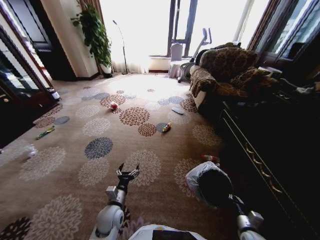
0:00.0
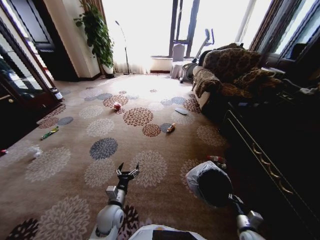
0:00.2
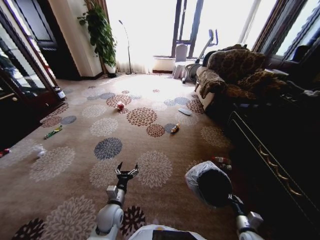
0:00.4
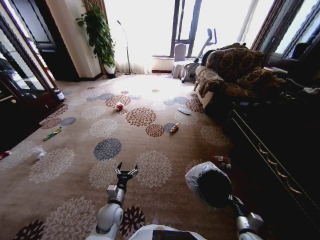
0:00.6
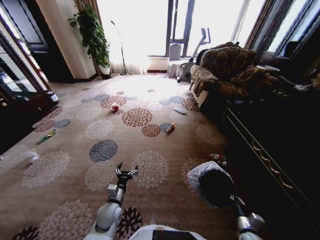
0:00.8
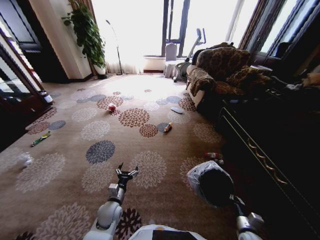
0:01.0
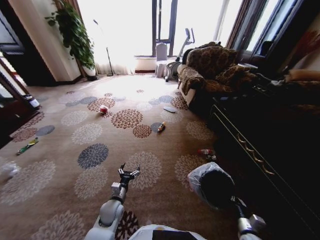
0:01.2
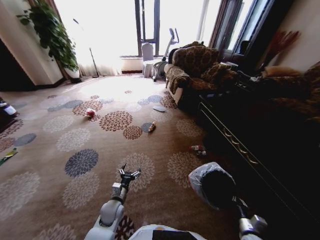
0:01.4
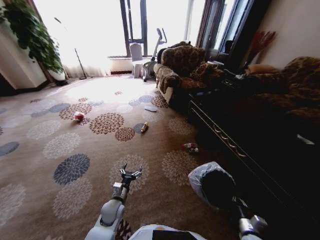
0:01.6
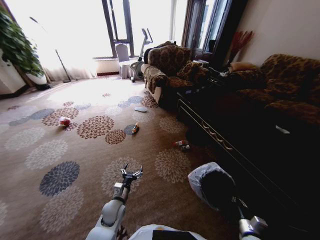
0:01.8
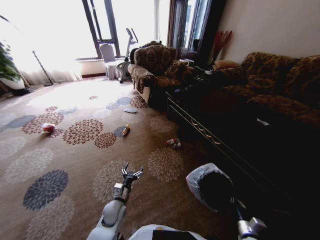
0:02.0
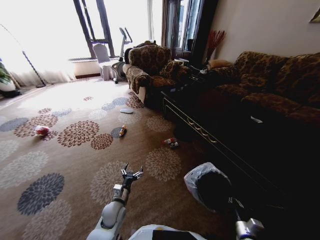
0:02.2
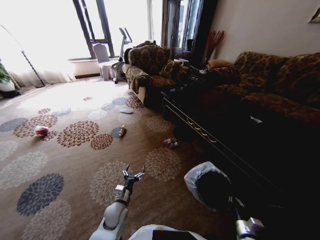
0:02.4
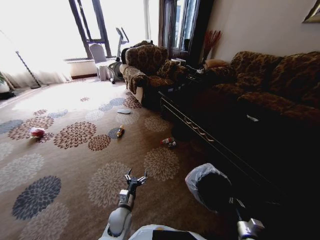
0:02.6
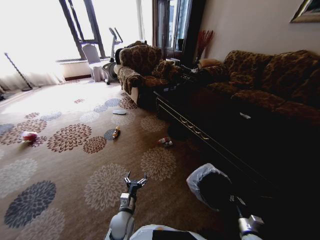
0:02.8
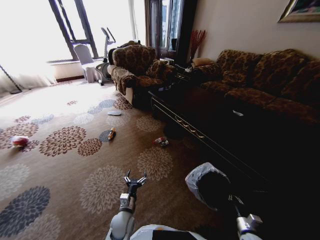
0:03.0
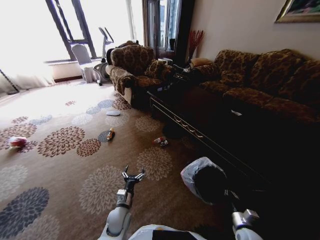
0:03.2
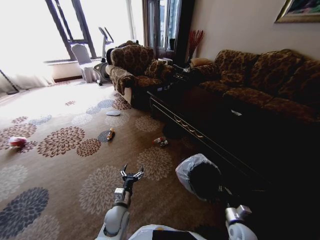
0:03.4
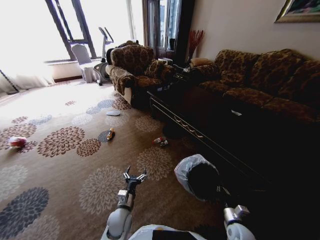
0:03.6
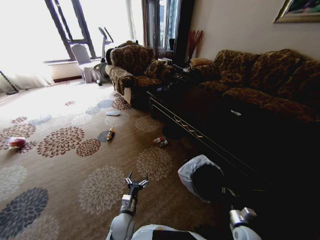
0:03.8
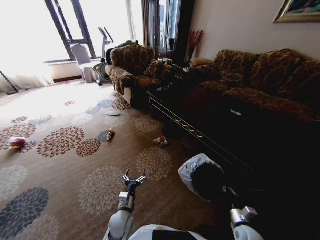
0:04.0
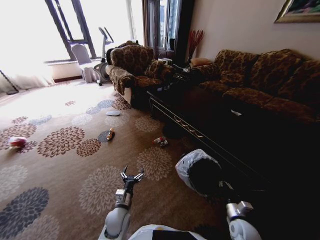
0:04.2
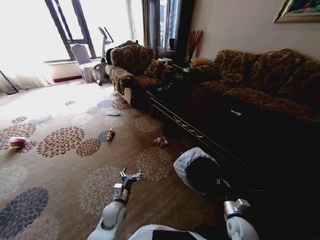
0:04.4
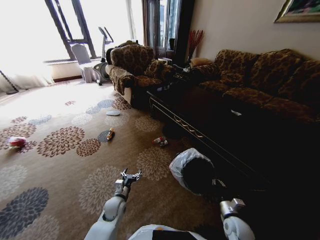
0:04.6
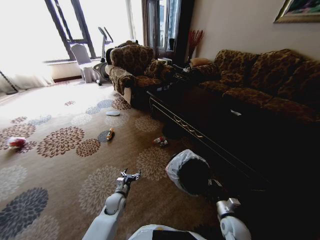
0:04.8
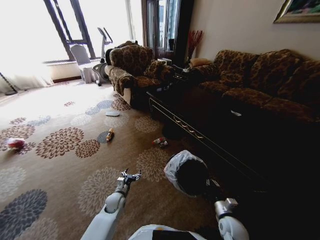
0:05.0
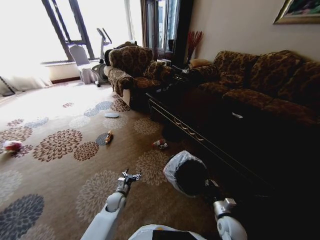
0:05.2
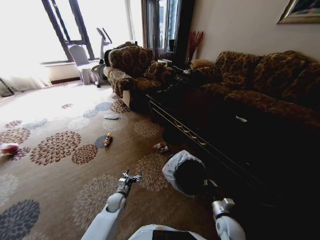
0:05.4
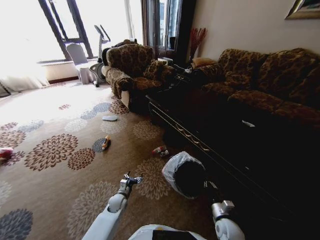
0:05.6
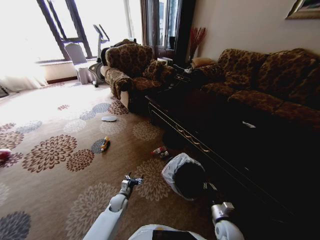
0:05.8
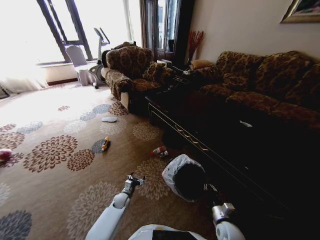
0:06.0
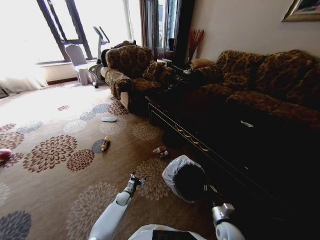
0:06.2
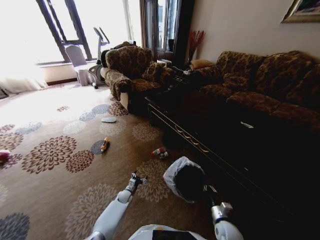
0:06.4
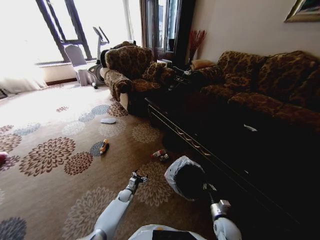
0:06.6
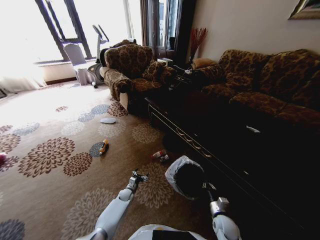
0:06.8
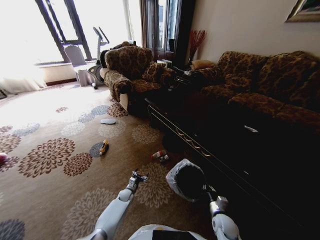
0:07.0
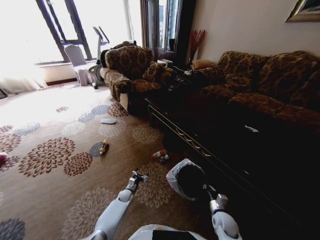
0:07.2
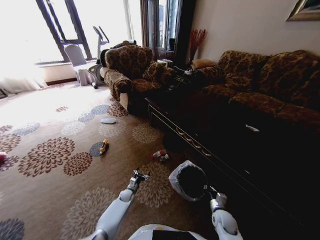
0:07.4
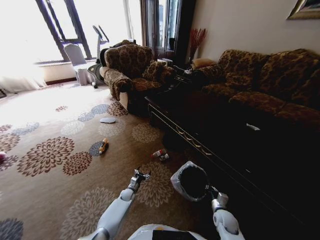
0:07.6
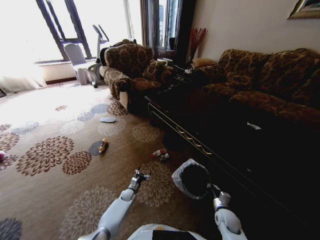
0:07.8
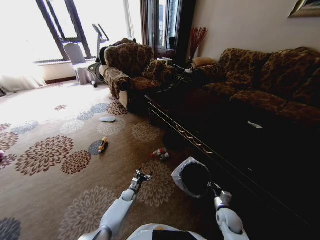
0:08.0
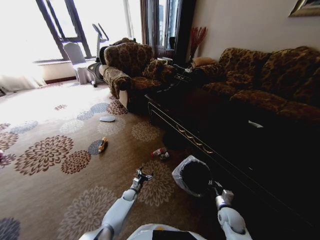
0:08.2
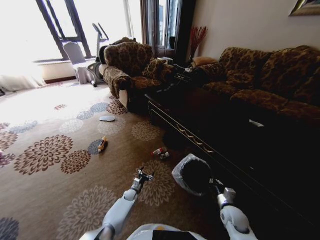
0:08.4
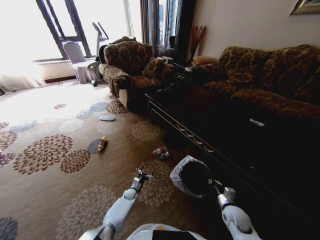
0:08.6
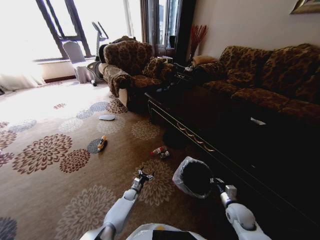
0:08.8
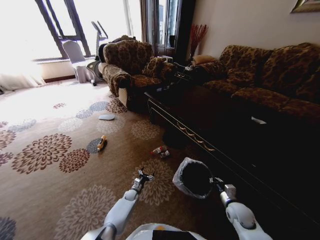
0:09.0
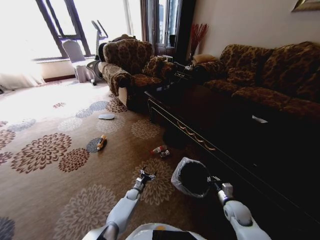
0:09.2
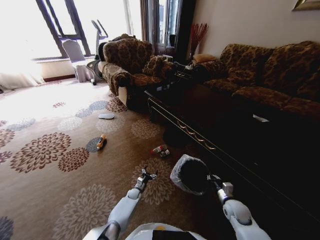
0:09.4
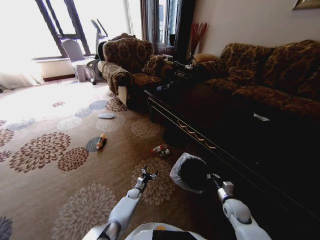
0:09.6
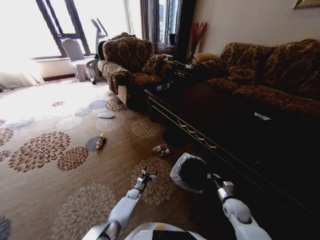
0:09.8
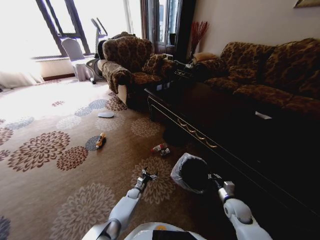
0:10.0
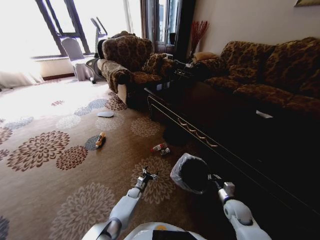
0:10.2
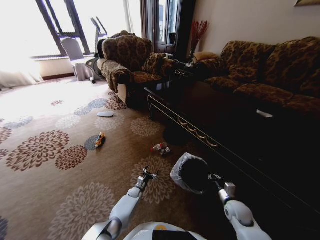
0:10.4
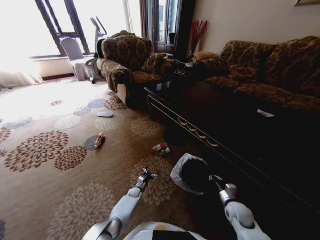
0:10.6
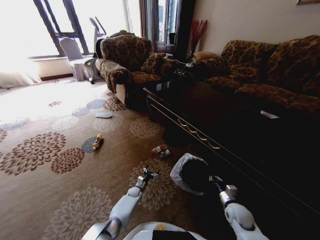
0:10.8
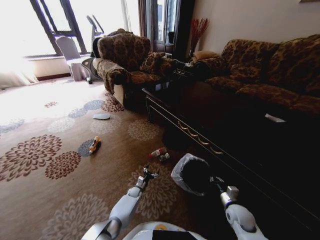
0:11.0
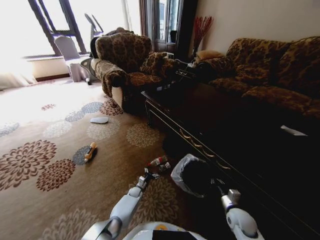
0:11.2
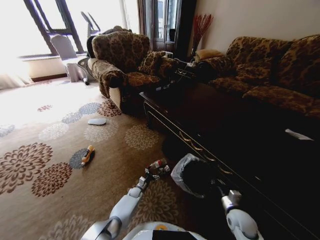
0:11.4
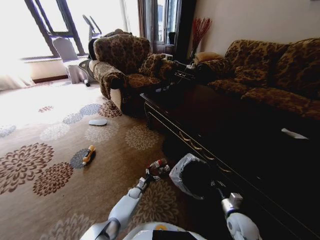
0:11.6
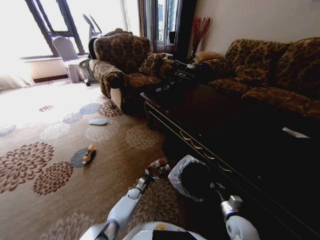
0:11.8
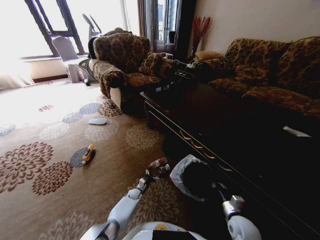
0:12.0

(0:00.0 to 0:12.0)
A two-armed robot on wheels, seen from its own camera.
Task of the whole recording: Pick up the trash from the ground and place it into the trash bin.
0:00.0 - 0:01.6: The left gripper shifts by some 5 cm.
0:01.6 - 0:03.0: The left gripper heads to the right, covering some 5 cm.
0:03.0 - 0:04.4: The left gripper changes place by about 5 cm. The right gripper is displaced to the left and upward by some 10 cm.
0:04.4 - 0:06.0: The left gripper moves downward and forward, some 15 cm, while the right gripper ends up roughly 5 cm from where it was.
0:06.0 - 0:07.6: The right gripper travels forward by about 5 cm. Meanwhile the left gripper moves approximately 5 cm.
0:07.6 - 0:09.0: The right gripper travels upward by approximately 5 cm.
0:09.0 - 0:10.4: The grippers make only small movements.
0:10.4 - 0:12.0: The right gripper goes approximately 5 cm backward.

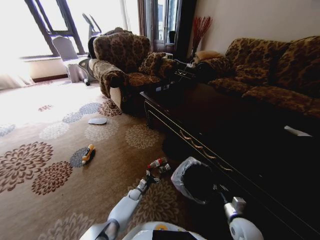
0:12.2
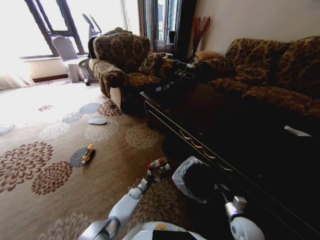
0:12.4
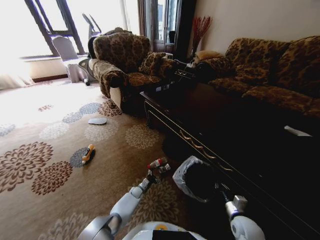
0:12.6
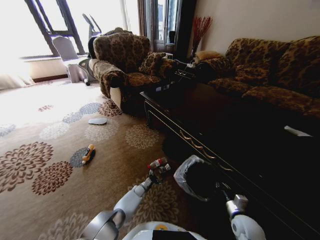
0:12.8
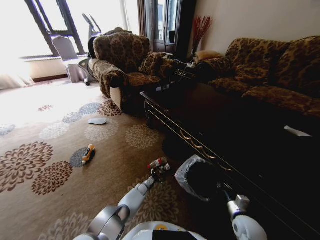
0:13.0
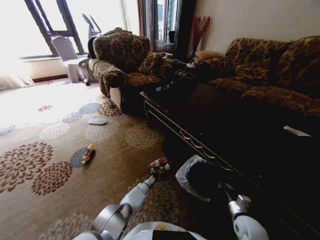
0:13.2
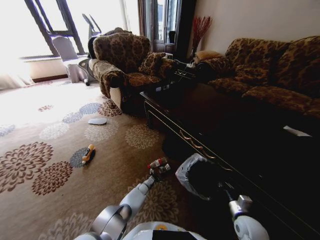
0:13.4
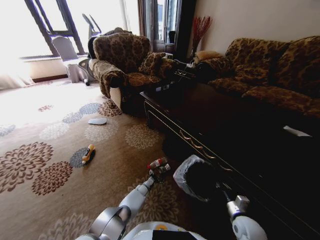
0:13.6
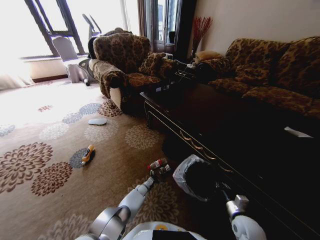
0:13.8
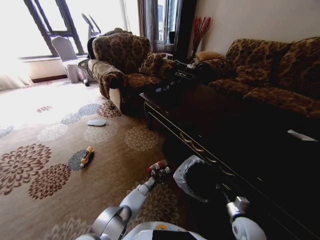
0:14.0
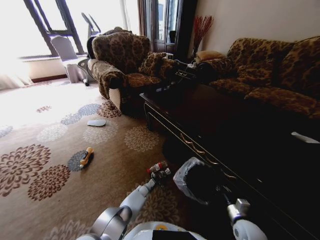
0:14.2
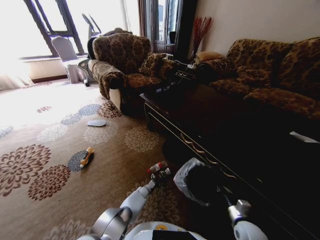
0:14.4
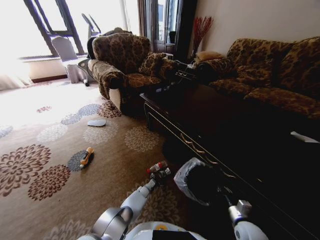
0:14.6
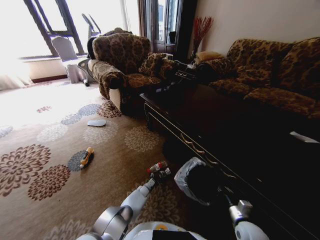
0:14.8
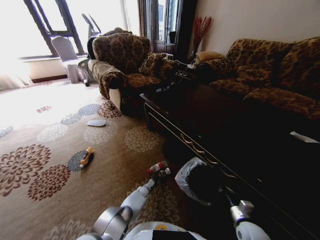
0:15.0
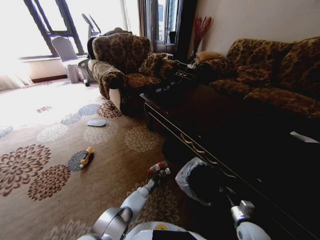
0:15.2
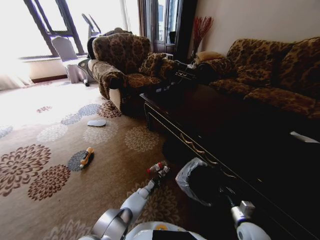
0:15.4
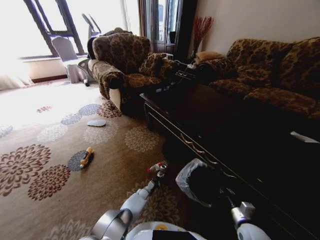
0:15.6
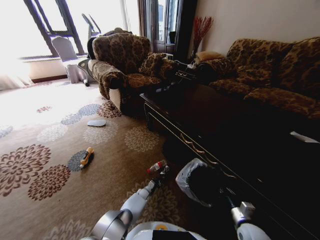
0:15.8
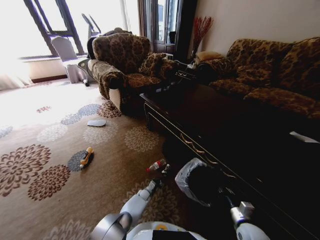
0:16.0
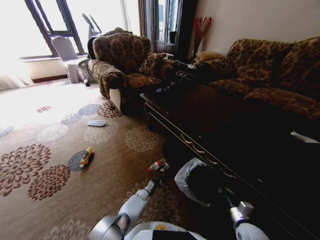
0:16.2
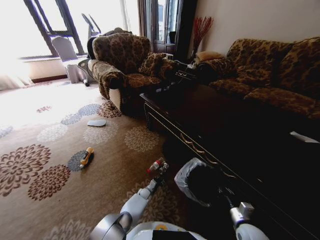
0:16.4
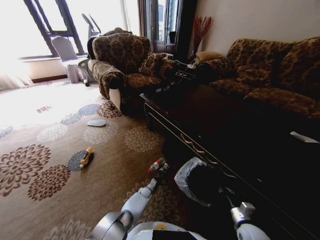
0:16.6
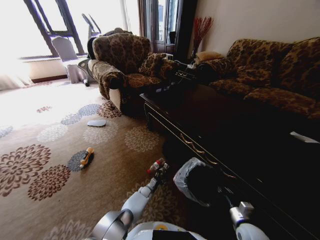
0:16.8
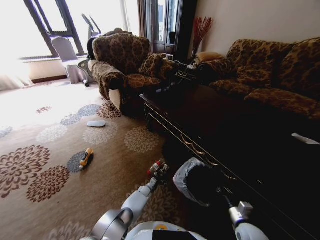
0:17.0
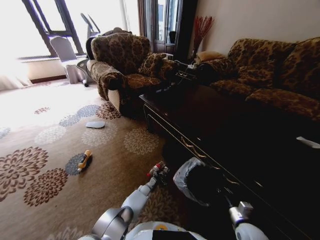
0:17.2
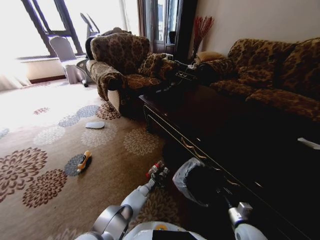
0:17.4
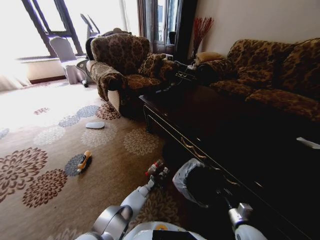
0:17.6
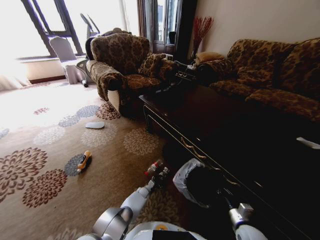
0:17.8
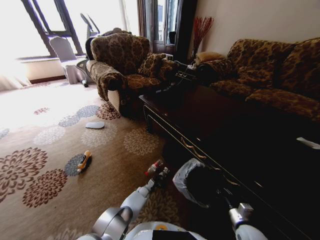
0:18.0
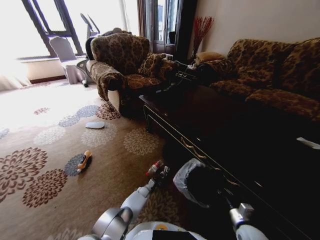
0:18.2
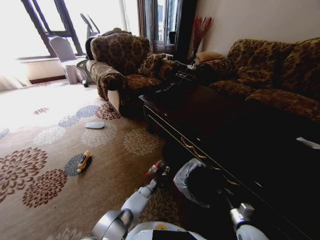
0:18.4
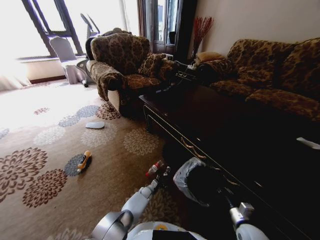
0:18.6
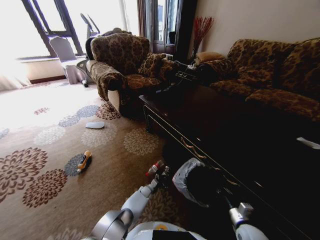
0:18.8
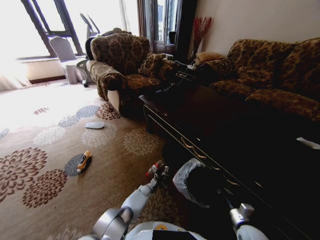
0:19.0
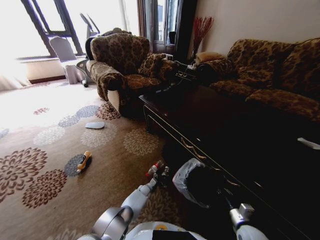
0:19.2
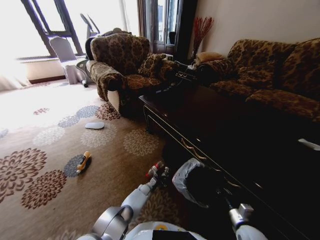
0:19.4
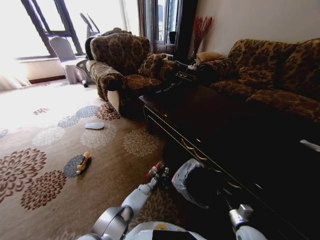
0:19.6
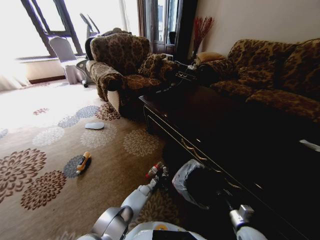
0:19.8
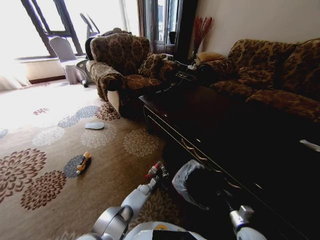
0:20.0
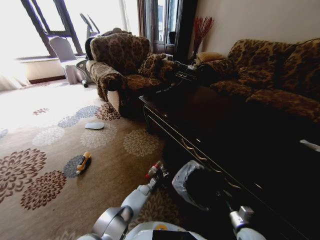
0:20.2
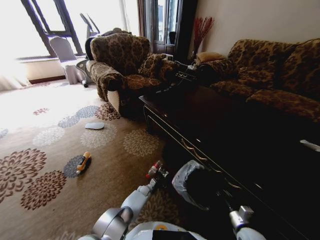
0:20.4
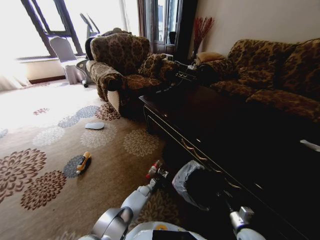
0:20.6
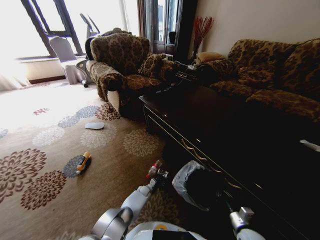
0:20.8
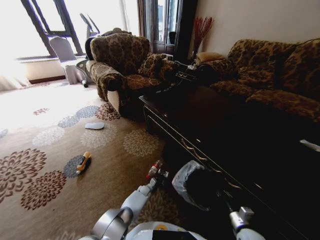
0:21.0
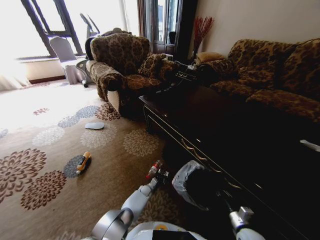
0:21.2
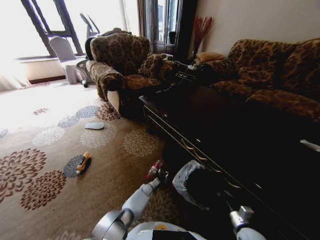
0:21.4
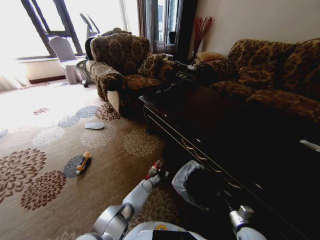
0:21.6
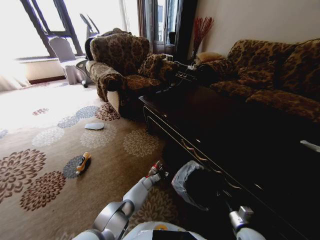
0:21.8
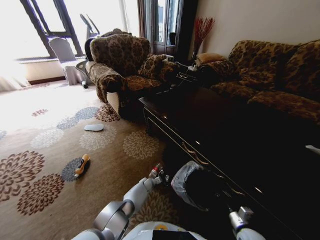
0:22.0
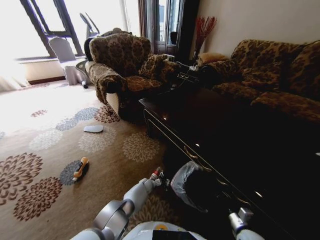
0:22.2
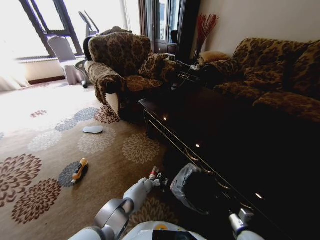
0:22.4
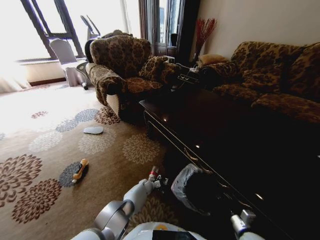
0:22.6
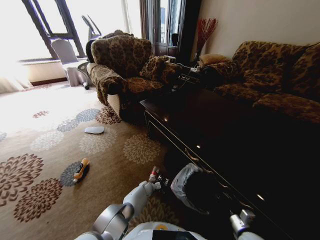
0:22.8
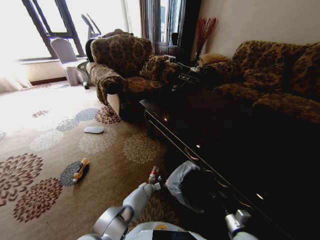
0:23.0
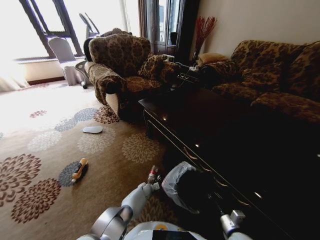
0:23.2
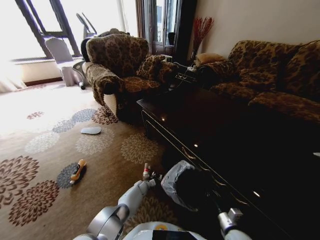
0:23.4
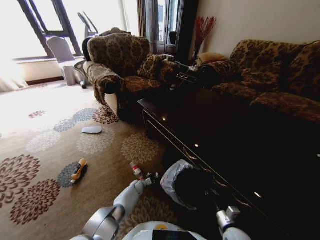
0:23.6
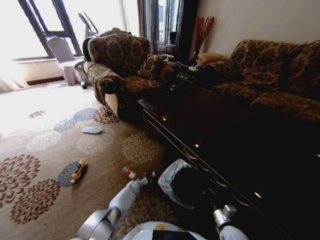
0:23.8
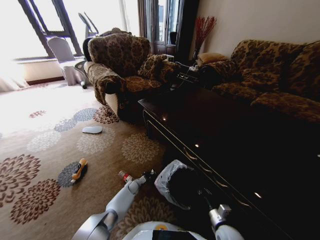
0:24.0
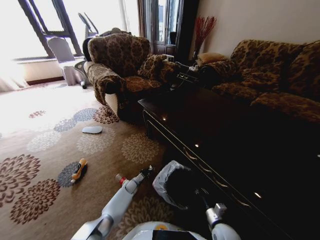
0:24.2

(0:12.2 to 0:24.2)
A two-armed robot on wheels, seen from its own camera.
Task of the whole recording: Pick up the trash from the ground and place it into the trash bin.
0:12.2 - 0:13.8: The grippers make only small movements.
0:13.8 - 0:15.2: The left gripper closes its fingers.
0:15.2 - 0:16.6: There are only small adjustments of the grippers.
0:16.6 - 0:18.2: The left gripper opens and closes again.
0:18.2 - 0:19.8: The left gripper opens up.
0:19.8 - 0:21.2: The left gripper closes.
0:21.2 - 0:22.6: The left gripper opens up.
0:22.6 - 0:24.2: The grippers both shift to the left by roughly 10 cm. The left gripper closes up.
